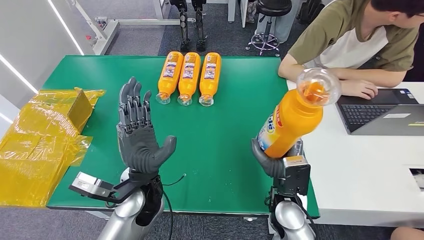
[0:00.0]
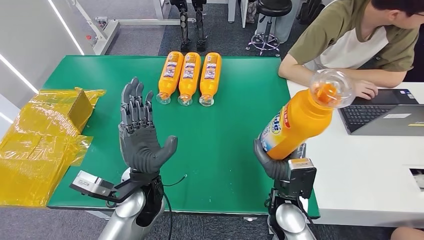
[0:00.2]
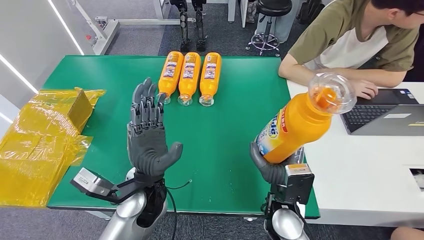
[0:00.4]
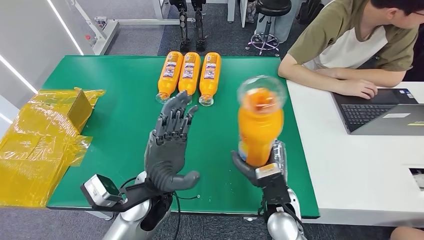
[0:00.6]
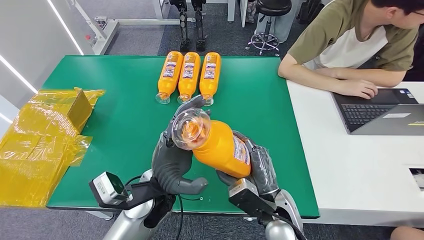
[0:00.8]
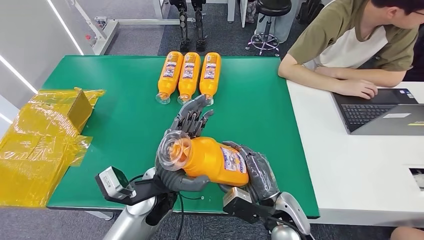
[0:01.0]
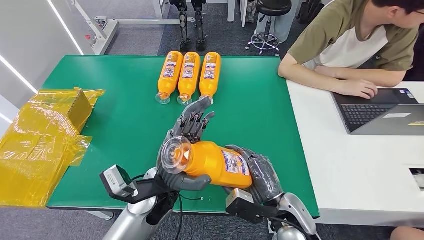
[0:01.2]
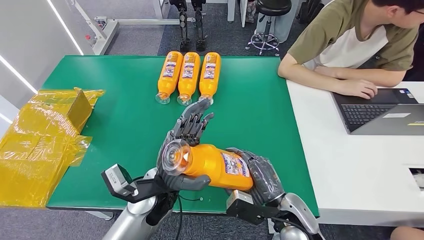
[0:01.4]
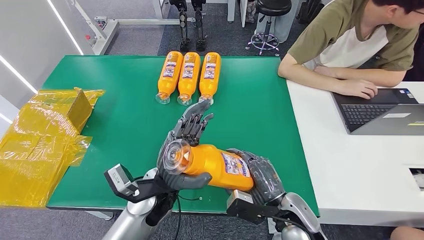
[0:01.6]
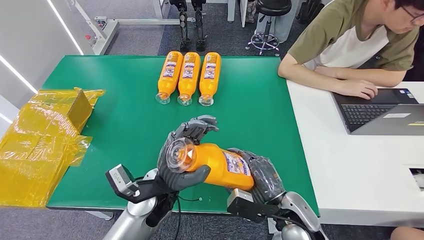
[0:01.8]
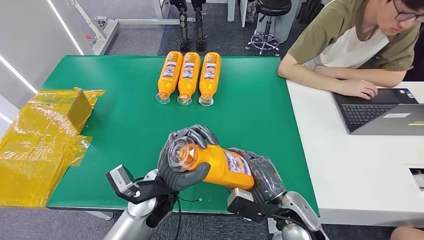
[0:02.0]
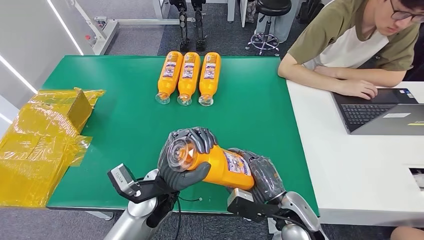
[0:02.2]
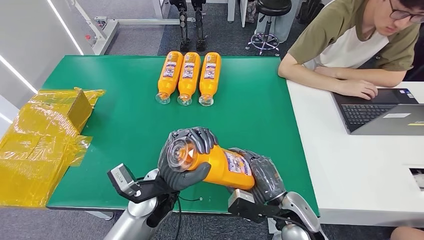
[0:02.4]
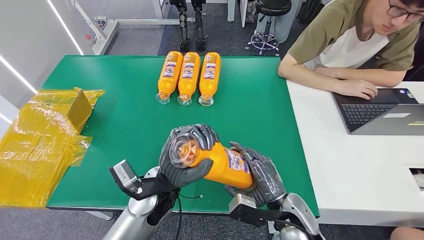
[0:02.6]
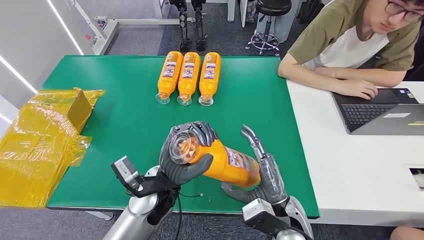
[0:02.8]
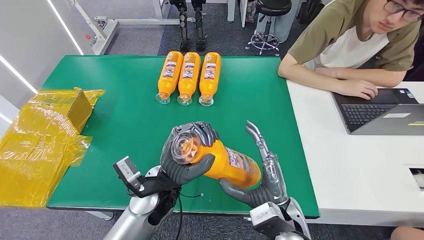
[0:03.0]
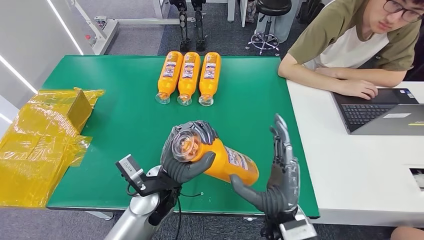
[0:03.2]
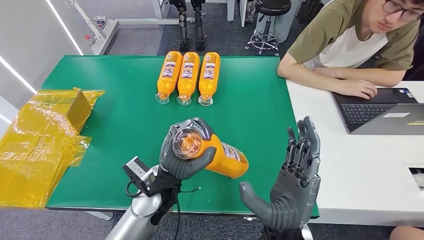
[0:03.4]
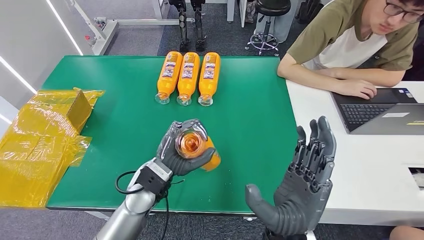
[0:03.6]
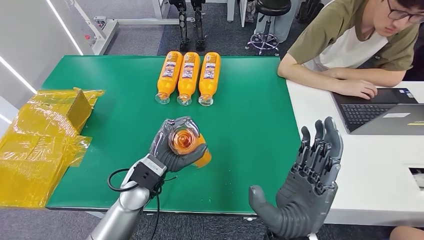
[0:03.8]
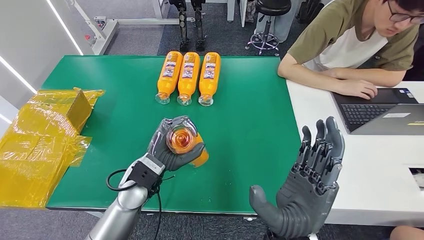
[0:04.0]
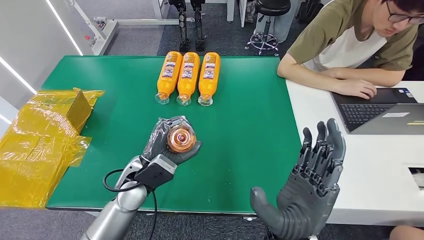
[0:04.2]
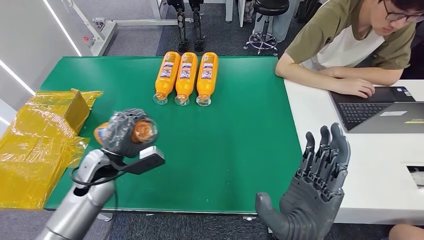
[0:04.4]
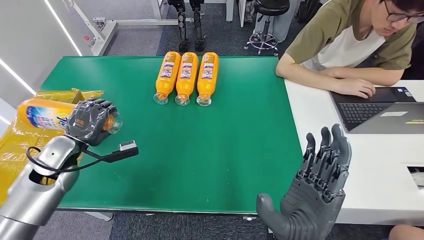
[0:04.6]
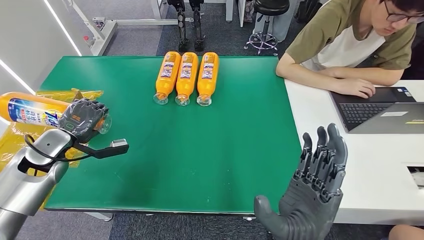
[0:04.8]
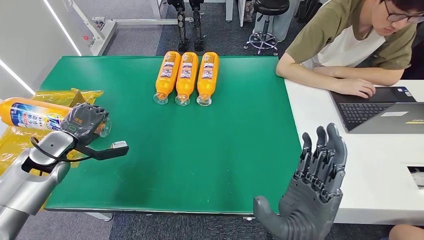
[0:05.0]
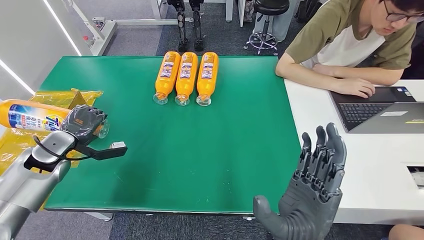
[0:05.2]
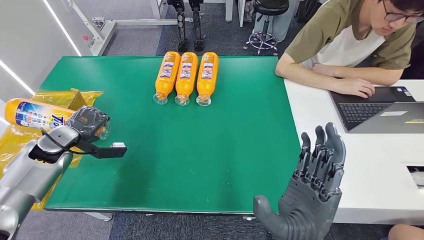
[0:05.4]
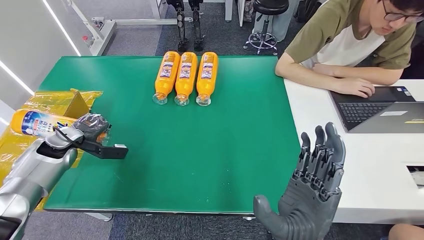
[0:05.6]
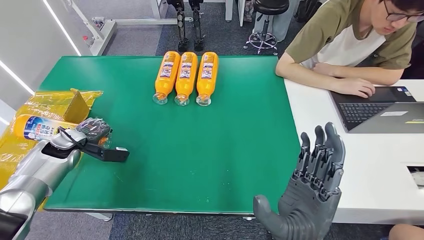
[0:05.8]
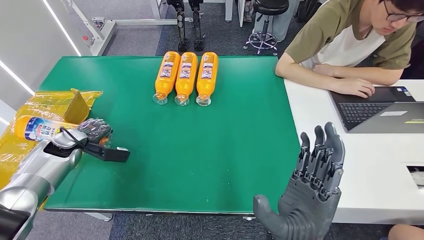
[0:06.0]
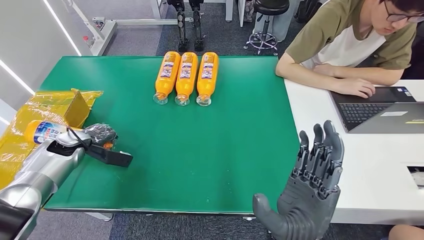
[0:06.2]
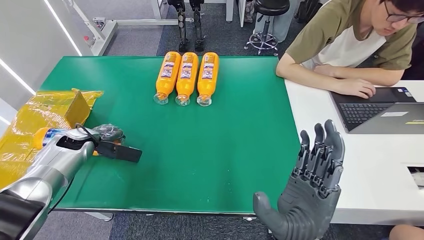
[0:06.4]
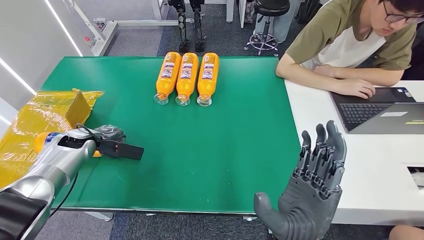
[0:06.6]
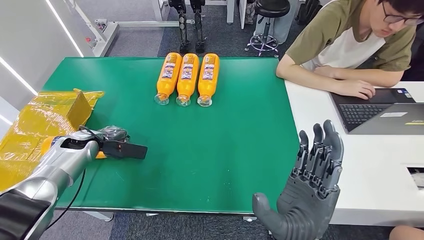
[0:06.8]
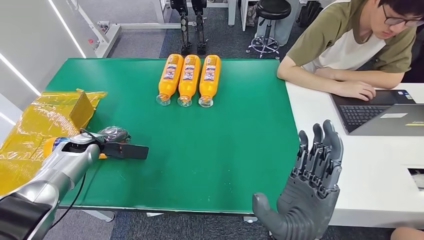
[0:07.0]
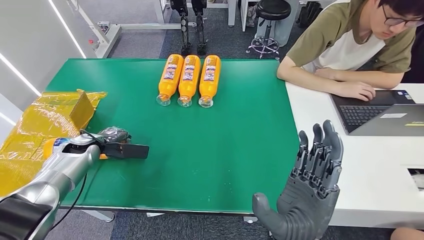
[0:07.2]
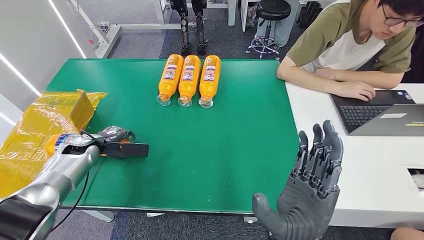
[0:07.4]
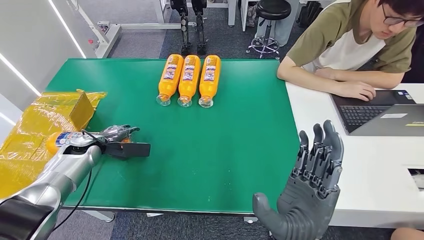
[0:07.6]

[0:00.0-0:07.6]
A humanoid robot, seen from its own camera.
Step, 0:00.2 to 0:07.6: Turn the bottle to the front side.
0:04.6 to 0:06.0: The left hand goes approximately 10 cm to the left and forward.
